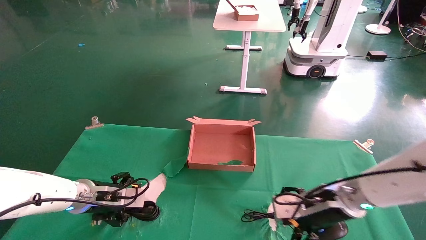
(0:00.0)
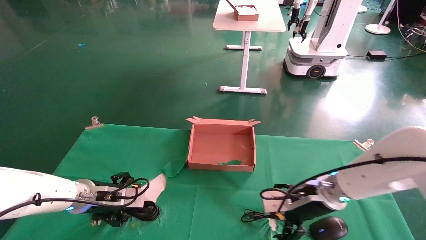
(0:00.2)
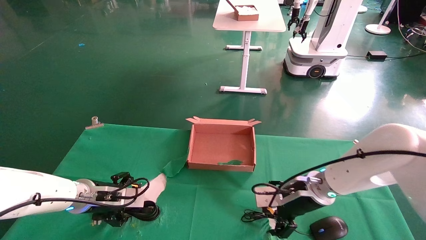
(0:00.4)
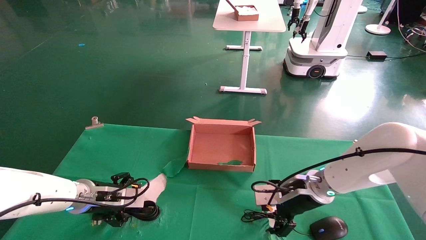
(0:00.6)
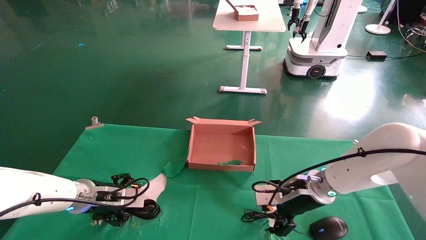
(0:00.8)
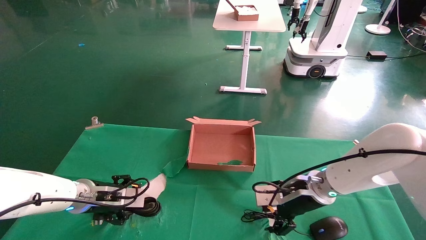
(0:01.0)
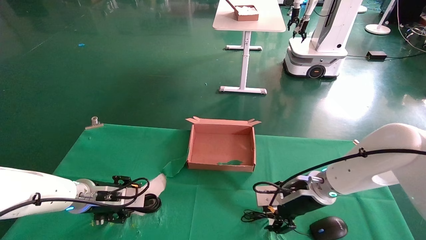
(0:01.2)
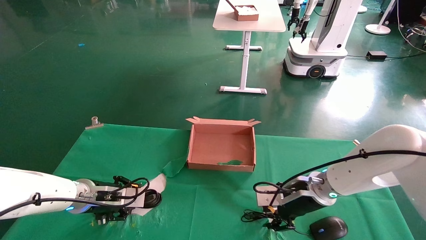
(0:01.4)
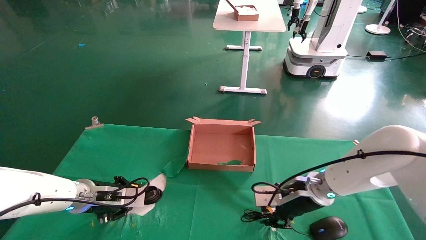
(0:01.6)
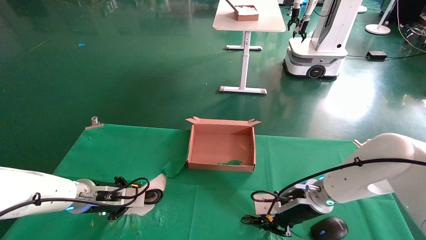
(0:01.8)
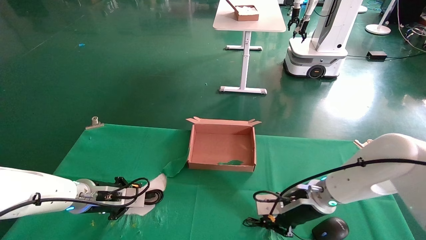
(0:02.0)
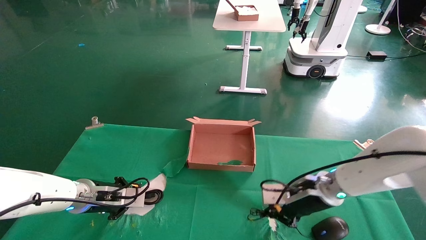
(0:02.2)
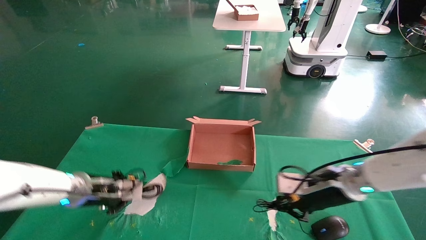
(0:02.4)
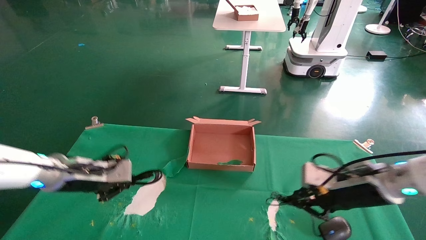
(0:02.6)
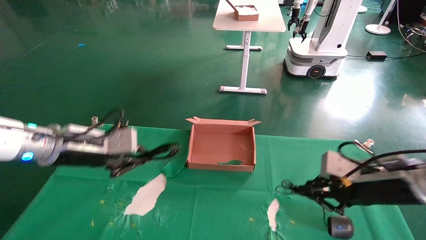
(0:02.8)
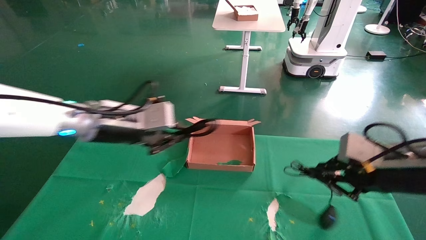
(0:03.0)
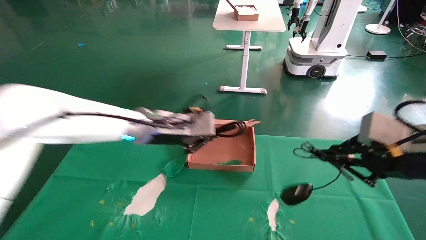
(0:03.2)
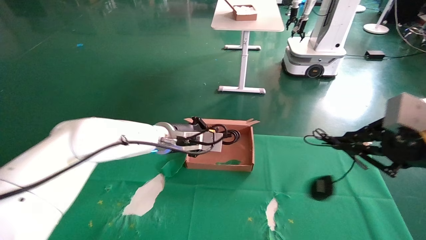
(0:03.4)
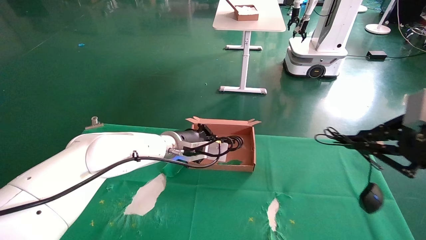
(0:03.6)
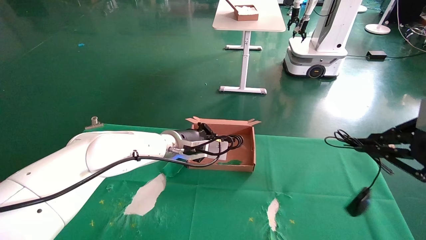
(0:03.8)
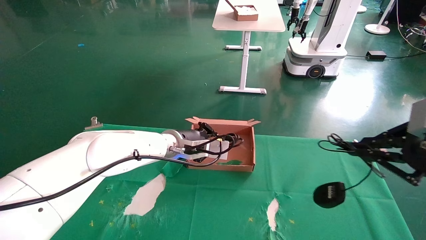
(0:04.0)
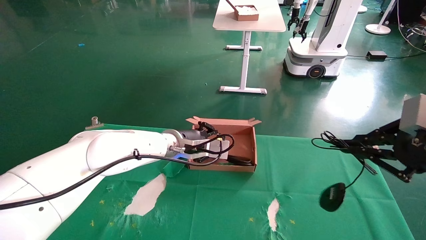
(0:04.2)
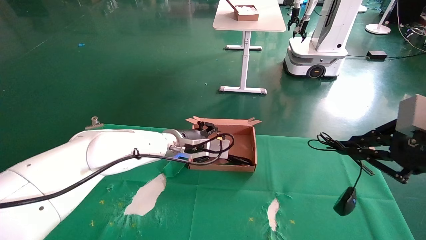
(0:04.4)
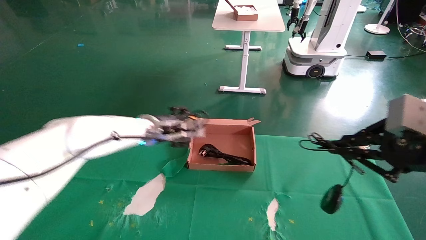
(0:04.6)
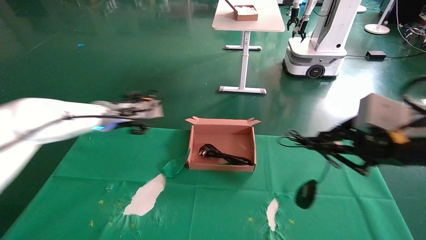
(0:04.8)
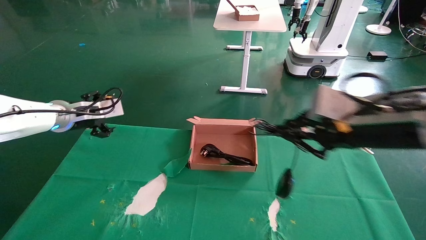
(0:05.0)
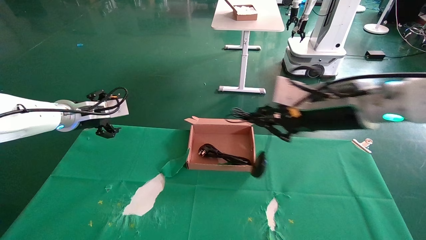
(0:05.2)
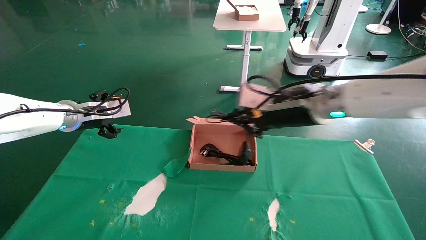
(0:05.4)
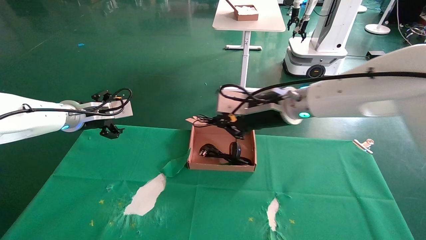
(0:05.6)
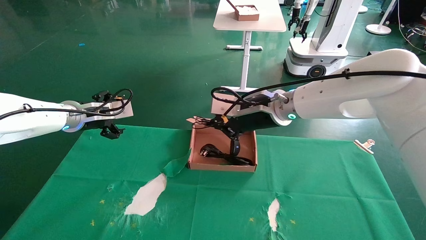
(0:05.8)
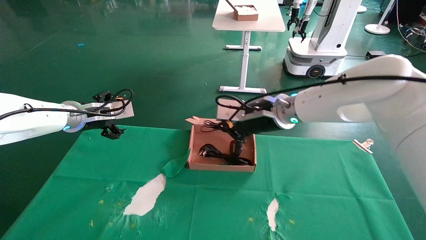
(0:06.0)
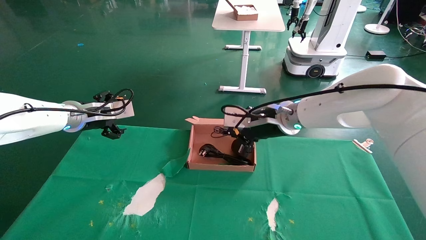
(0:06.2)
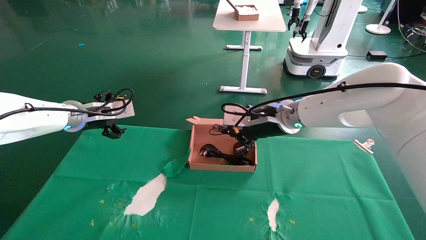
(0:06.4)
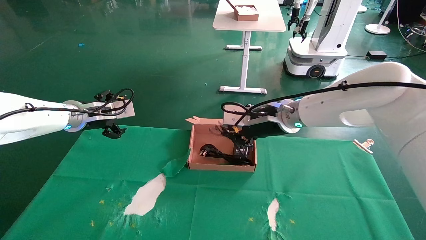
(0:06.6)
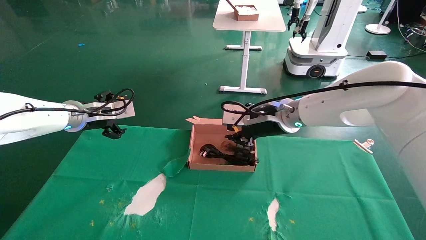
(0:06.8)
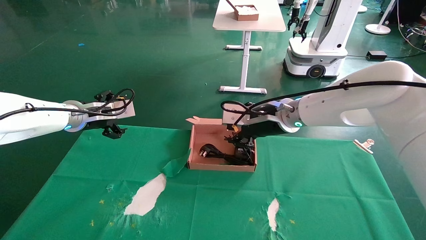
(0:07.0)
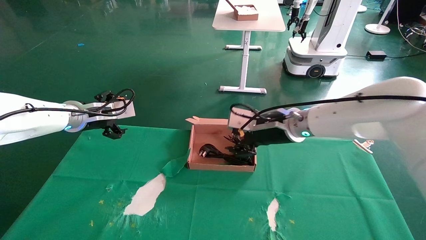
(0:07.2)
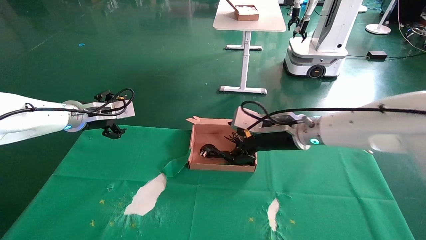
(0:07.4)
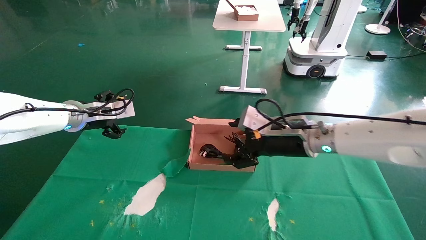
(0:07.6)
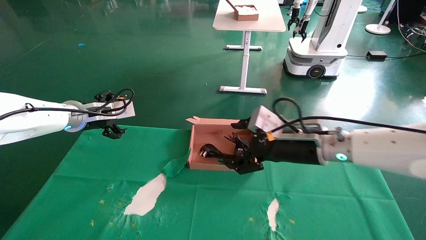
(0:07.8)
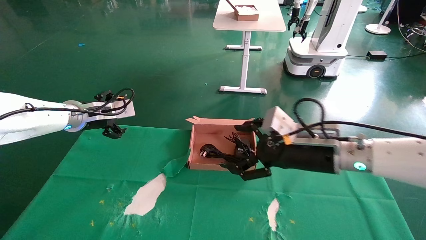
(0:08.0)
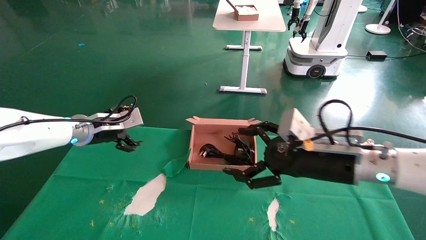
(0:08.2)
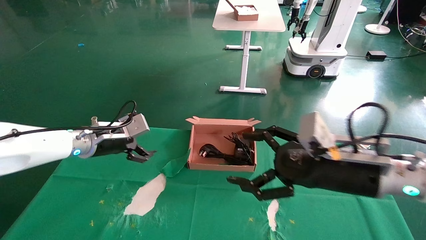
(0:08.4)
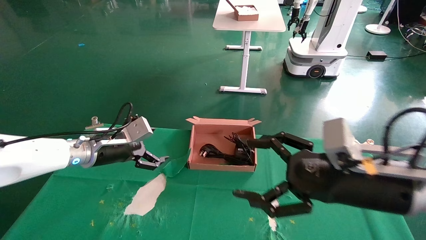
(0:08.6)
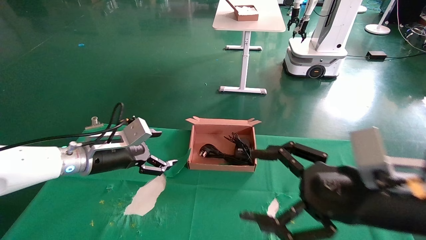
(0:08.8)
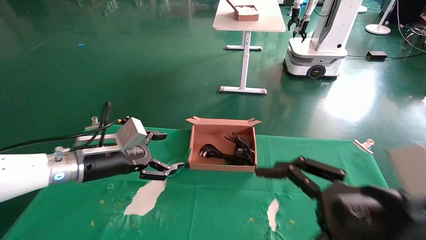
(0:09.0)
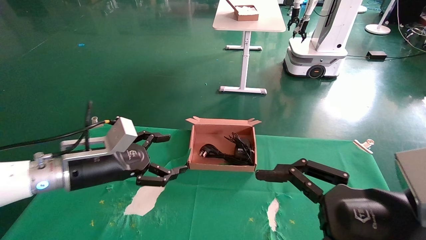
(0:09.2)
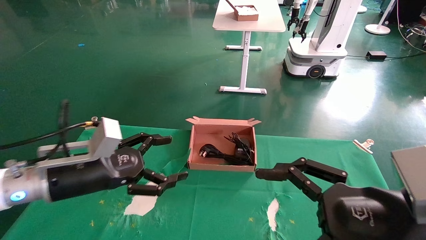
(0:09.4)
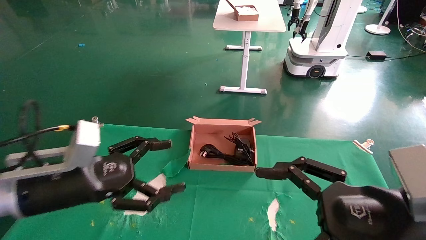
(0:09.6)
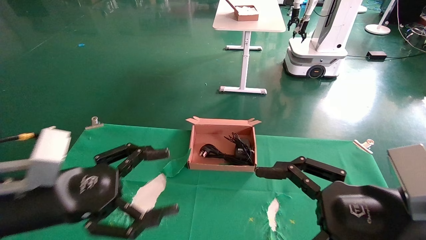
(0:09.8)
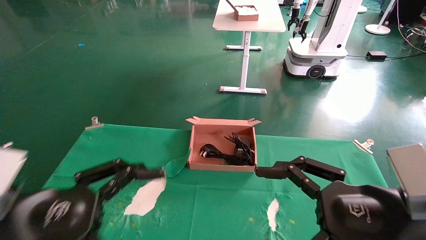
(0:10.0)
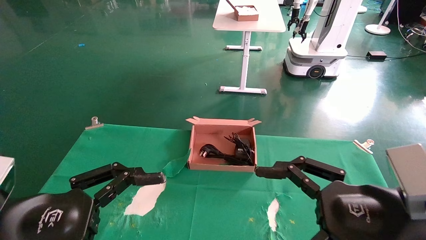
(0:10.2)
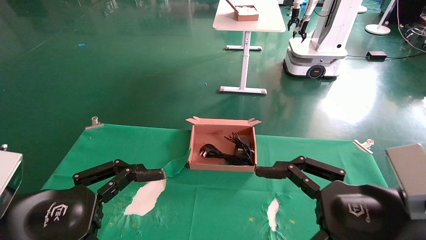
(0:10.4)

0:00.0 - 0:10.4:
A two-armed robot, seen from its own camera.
Step, 0:00.0 - 0:02.6: Grab and lift both the mouse and power cord from the accessory packaging area at the same time.
Step, 0:02.8 - 0:08.0: Place the mouse and power cord into the box.
0:00.0 - 0:01.4: The left gripper closes. The right gripper shifts by about 5 cm, and closes.
0:01.4 - 0:03.0: The right gripper travels backward, to the right and upward by roughly 20 cm, and closes up, while the left gripper goes about 20 cm upward and to the right, and closes its fingers.
0:03.0 - 0:04.4: The right gripper heads backward and upward, covering roughly 10 cm, while the left gripper moves forward and to the right, some 10 cm.
0:04.4 - 0:06.0: The left gripper travels to the left by about 20 cm, and opens up. The right gripper moves forward and to the left, roughly 30 cm.
0:06.0 - 0:07.4: The right gripper moves approximately 5 cm, and opens.
0:07.4 - 0:09.0: The left gripper travels backward, downward and to the right by about 15 cm. Meanwhile the right gripper heads backward and to the right, covering some 25 cm.
0:09.0 - 0:10.4: The left gripper heads backward, covering some 20 cm.
